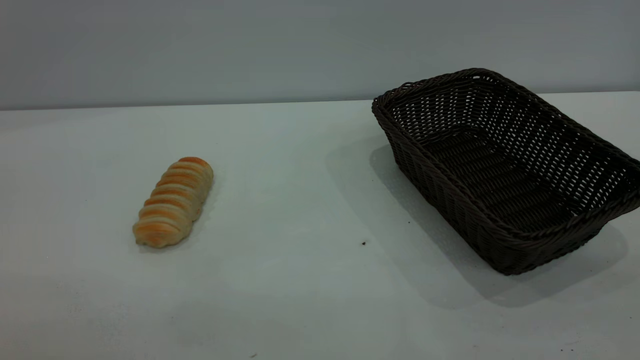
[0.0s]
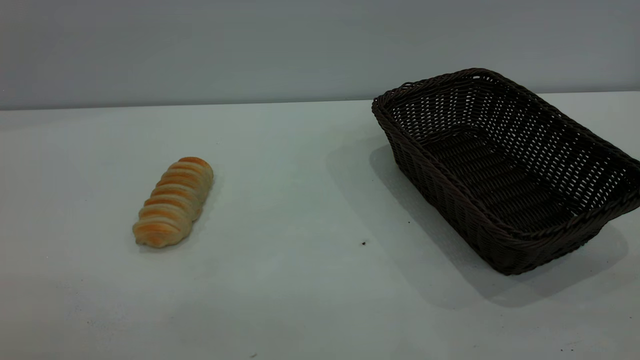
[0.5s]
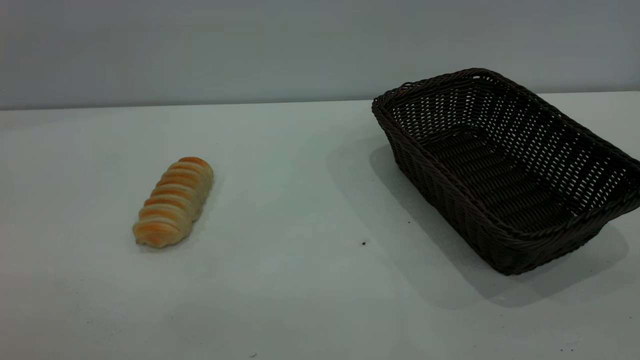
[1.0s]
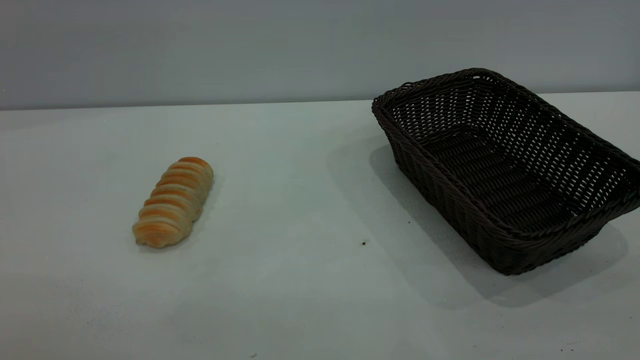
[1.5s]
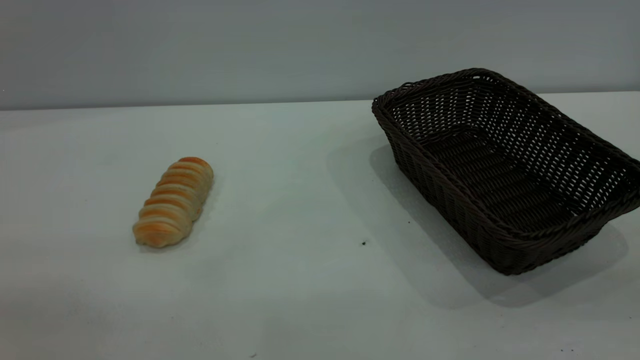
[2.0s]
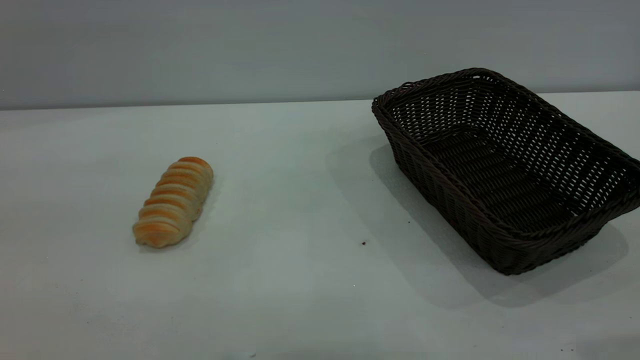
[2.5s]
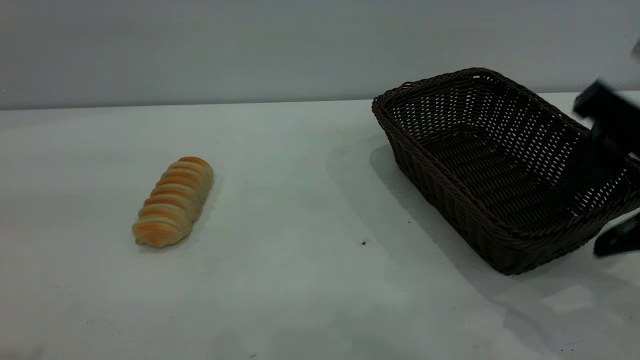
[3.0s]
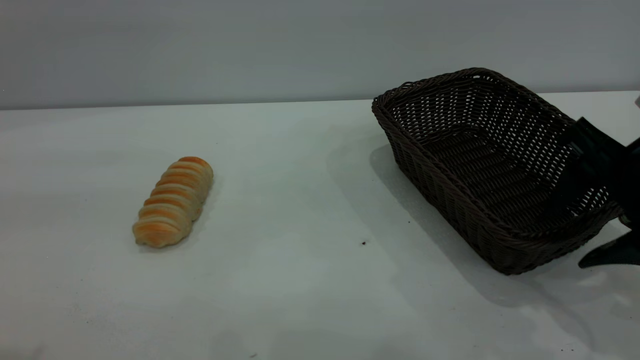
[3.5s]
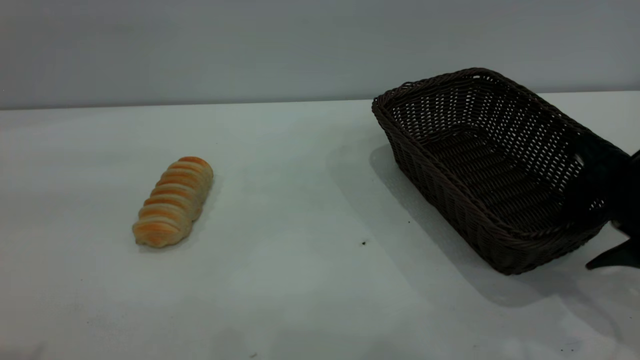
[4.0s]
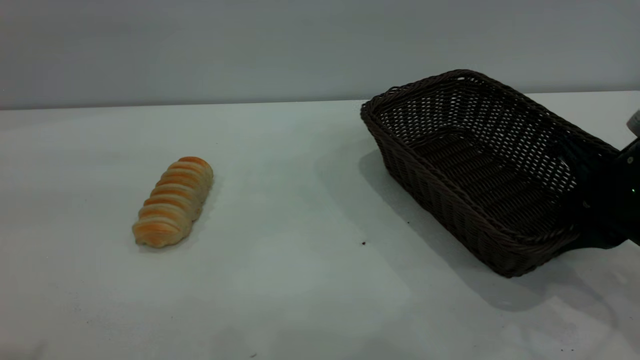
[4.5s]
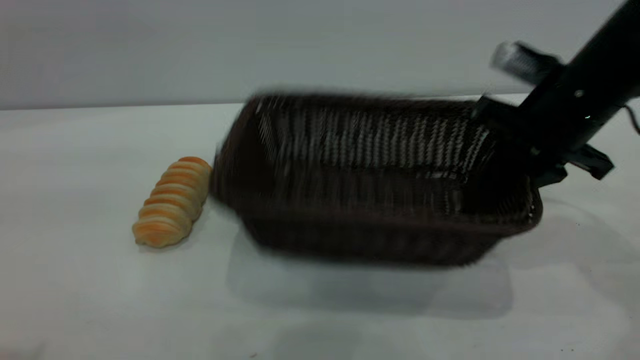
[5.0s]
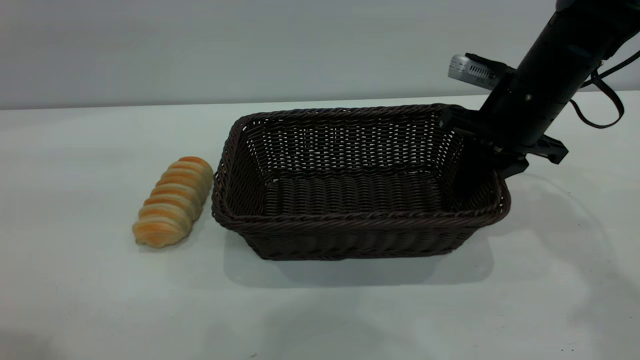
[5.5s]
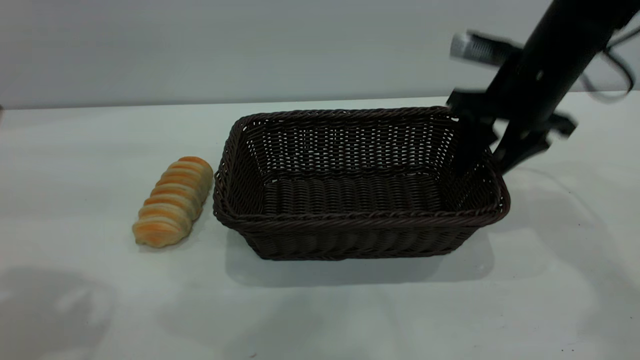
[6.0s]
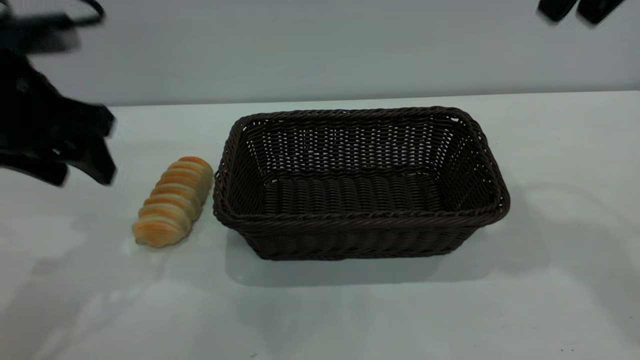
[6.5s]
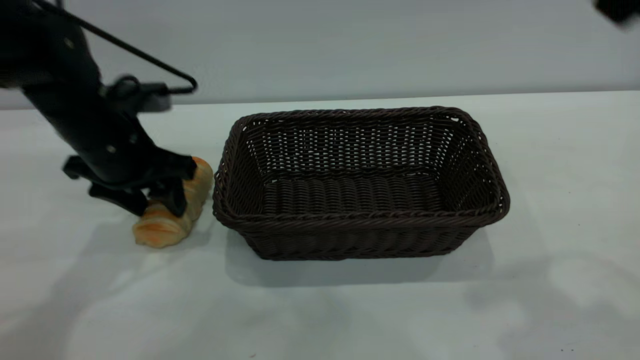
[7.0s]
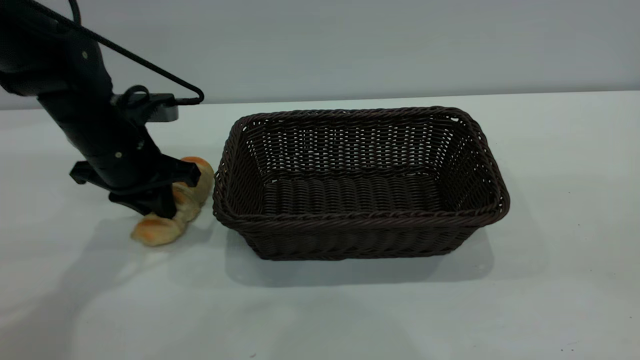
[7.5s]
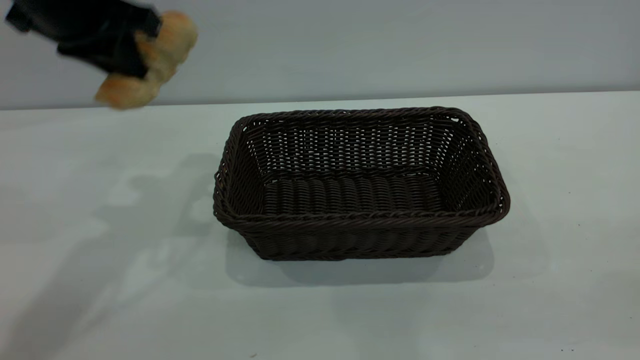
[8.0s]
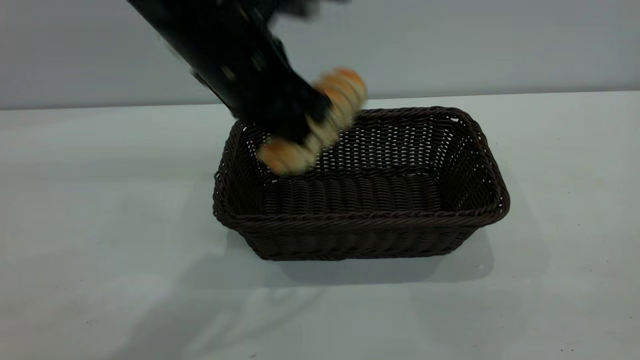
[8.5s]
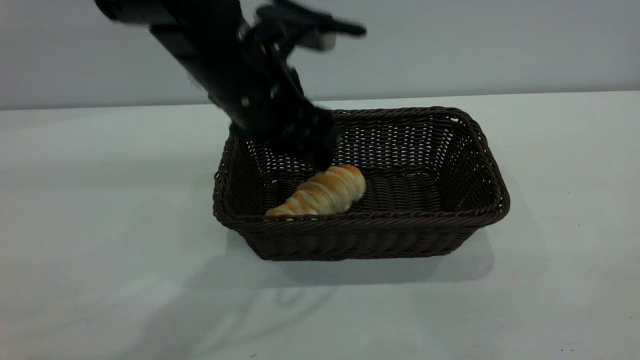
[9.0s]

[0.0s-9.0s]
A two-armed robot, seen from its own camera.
Task of the whole recording: One hand grasps the black basket and places it in the middle of the table, while the other hand picks up the long bread and puts it into the black basket.
Step, 0.0s to 6.0s: Move the basket to the center of view.
2.0s to 4.5s: The right gripper moves forward and downward, roughly 35 cm, and closes its fingers. The left gripper shifts some 15 cm forward.
4.5s to 7.0s: The left gripper shifts about 35 cm downward and forward. The right gripper goes roughly 25 cm upward, and opens.
7.0s to 9.0s: The left gripper shifts roughly 20 cm to the right and upward, and closes, then opens again, while the right gripper is displaced backward by approximately 25 cm.

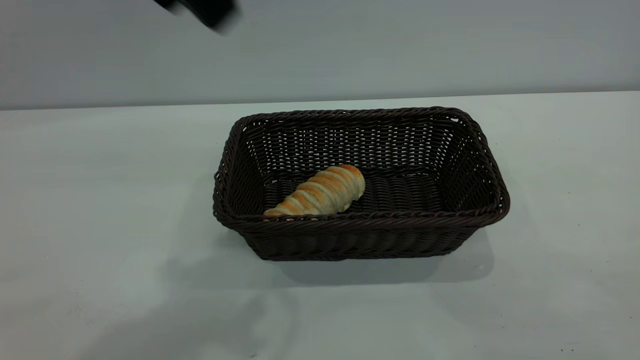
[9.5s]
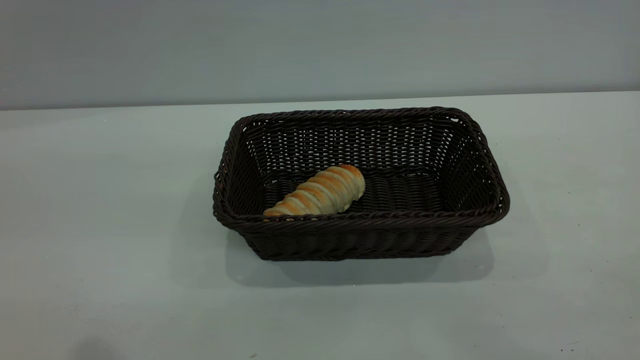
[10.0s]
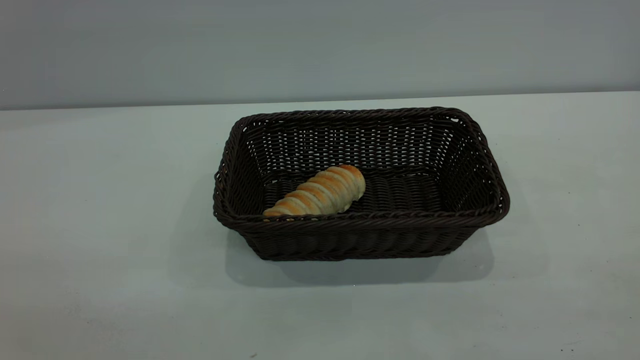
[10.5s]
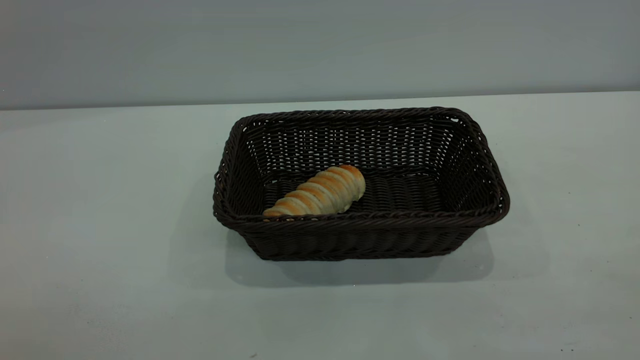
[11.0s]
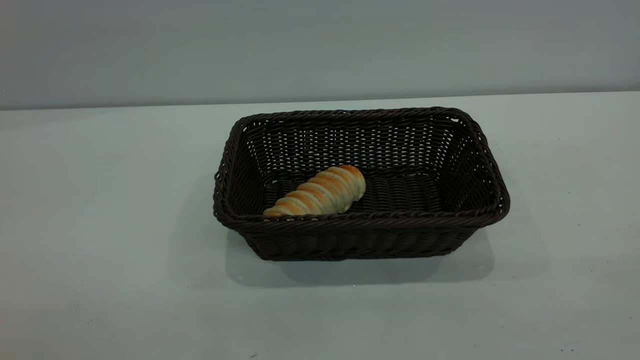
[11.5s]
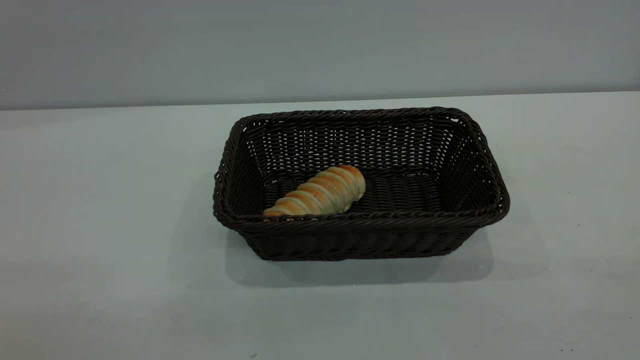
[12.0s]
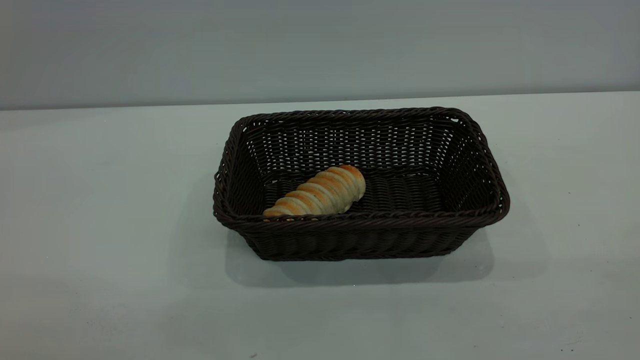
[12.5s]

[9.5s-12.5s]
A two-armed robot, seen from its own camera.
Task of the whole recording: One hand grasps the black basket and places it in the middle of the table, while the other hand picks up the long bread and puts it into the black basket.
9.5s to 11.0s: The left gripper goes roughly 30 cm backward and to the left.
